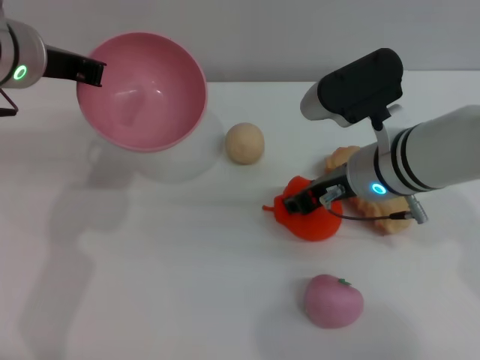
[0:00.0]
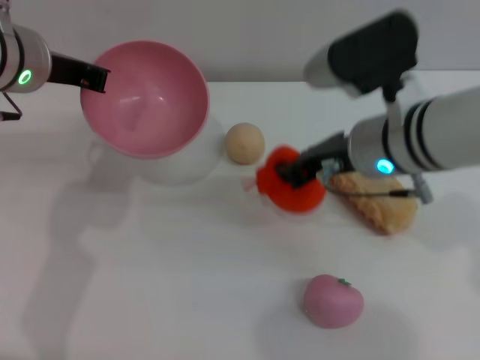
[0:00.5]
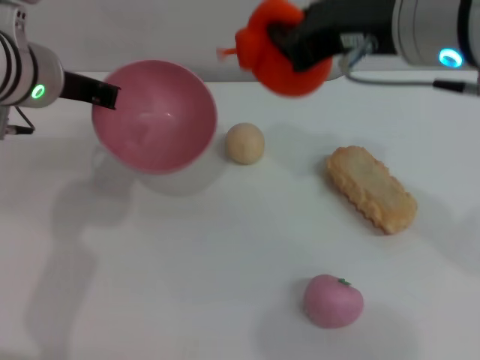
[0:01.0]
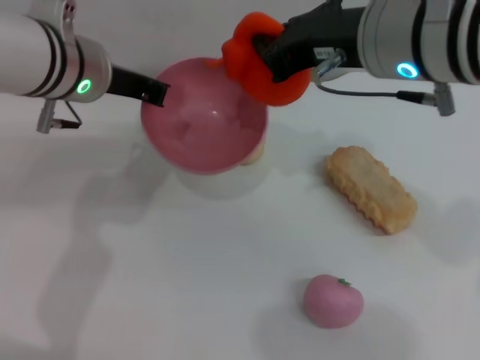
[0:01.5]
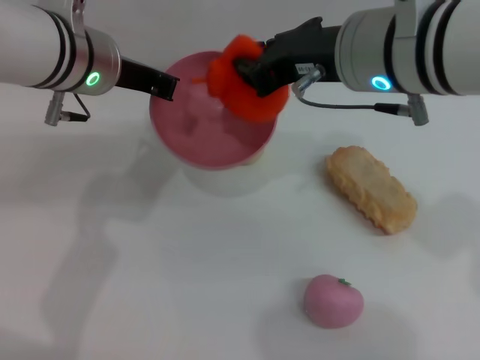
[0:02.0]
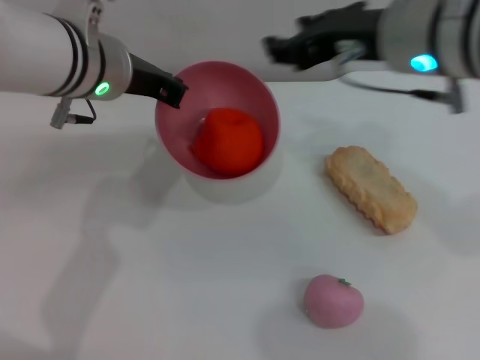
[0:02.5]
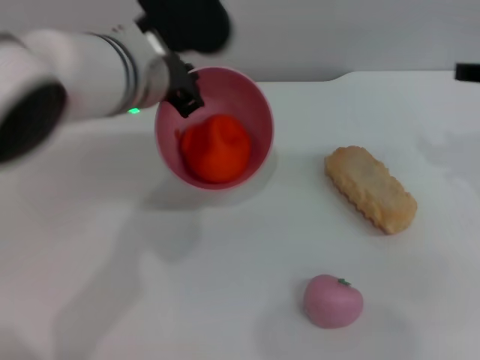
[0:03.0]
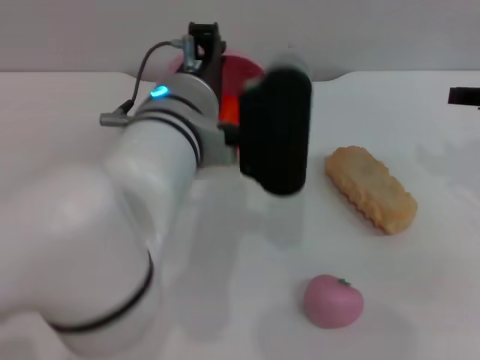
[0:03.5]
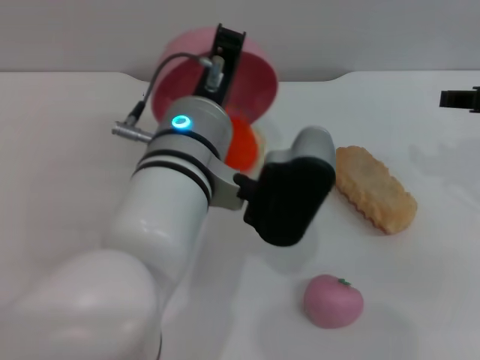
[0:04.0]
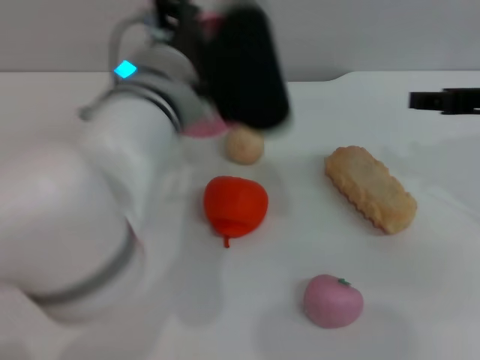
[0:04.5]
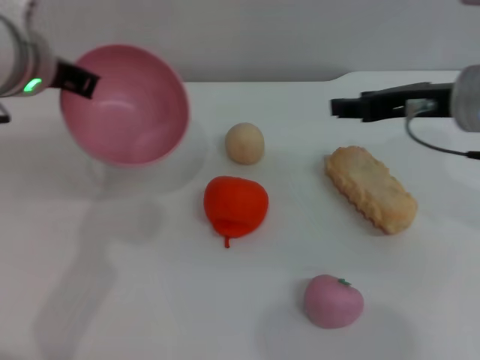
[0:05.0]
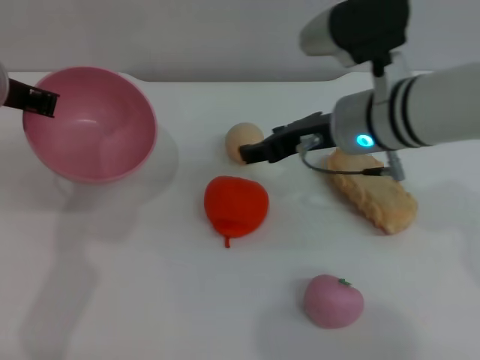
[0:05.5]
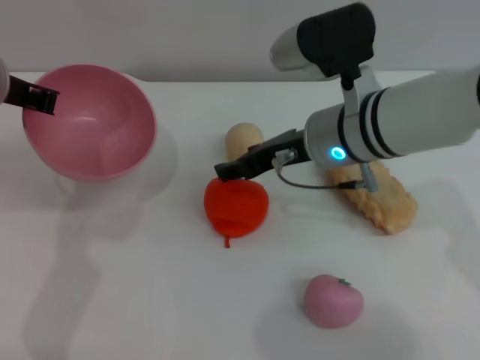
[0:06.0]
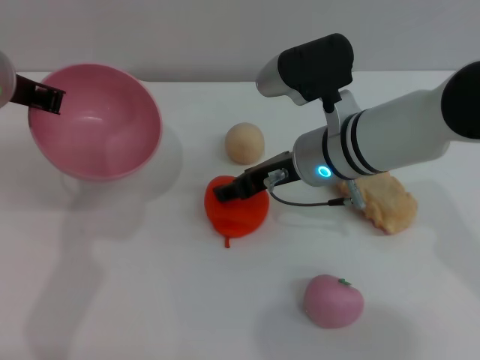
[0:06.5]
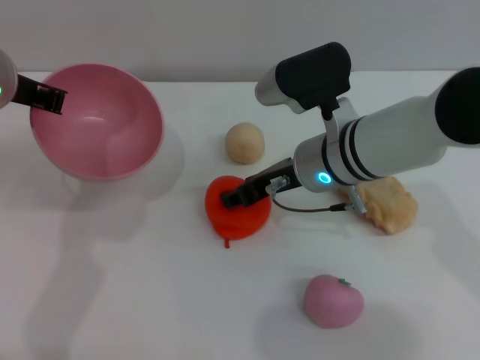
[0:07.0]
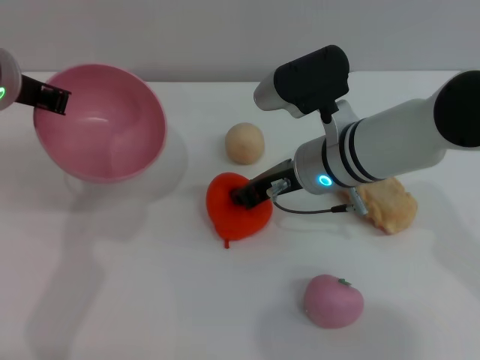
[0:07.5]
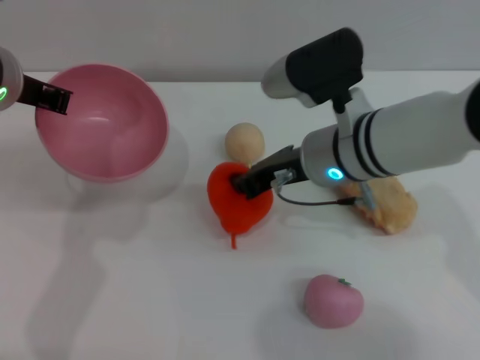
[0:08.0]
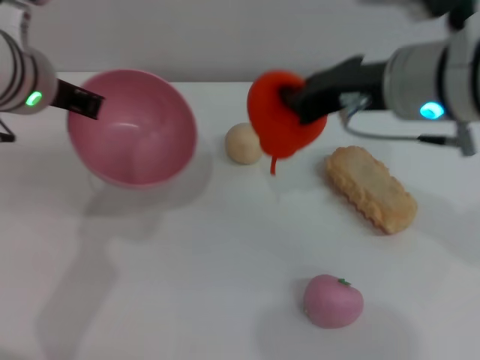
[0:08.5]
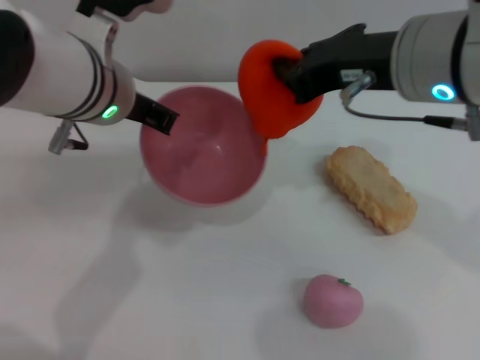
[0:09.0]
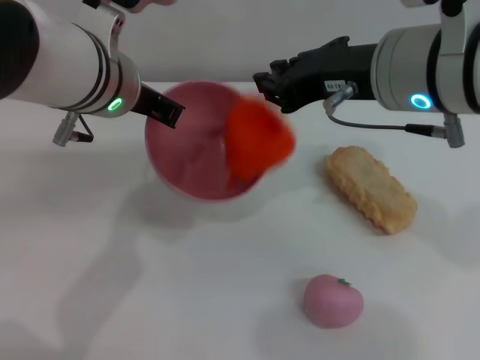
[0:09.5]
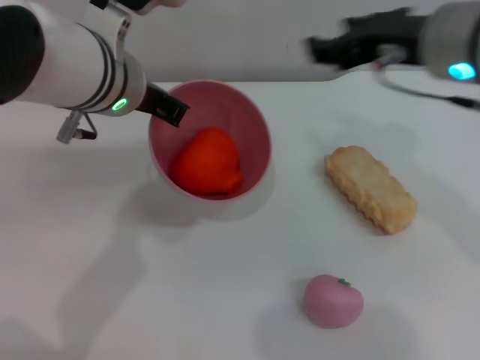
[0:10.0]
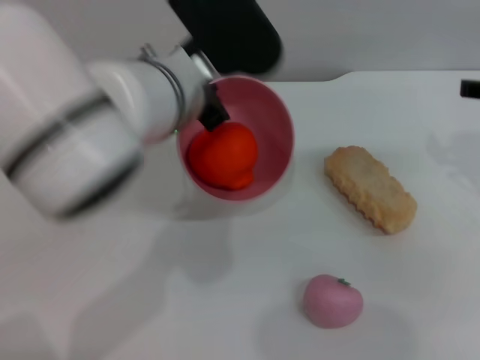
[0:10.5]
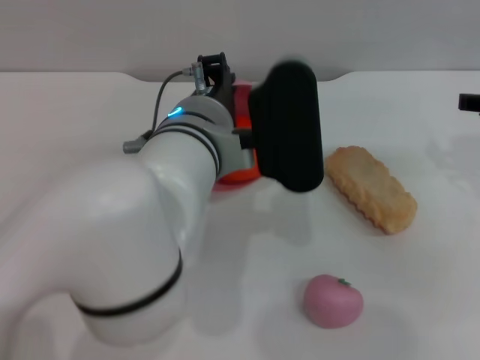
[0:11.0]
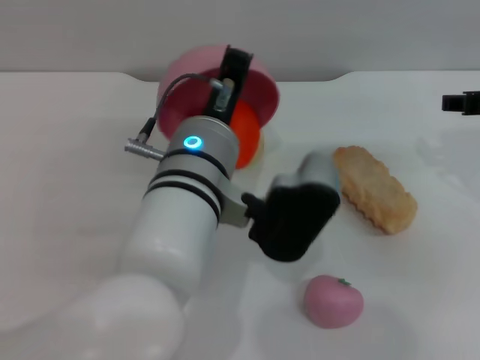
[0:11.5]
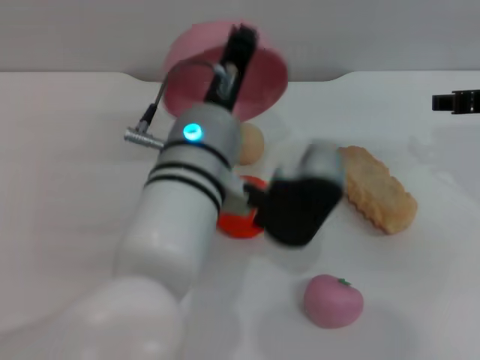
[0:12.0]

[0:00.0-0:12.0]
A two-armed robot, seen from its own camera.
Task of the whole recording: put the orange into the pink bowl and pour it out repeatedly.
Step, 0:01.0 to 0:02.0: Place the orange into the bowl.
Step, 0:02.5 to 0:04.0: Pour the orange out of the bowl.
Step, 0:04.5 to 0:08.5: Pick up the orange with the right gripper.
Step, 0:09.0 to 0:09.5: Place the orange into the bowl.
Step, 0:10.0 to 0:12.0: Pour the orange out of the bowl.
0:00.0 to 0:02.0: The left gripper goes about 5 cm to the right, while the right gripper heads upward, covering about 15 cm, and closes.
0:02.0 to 0:04.0: The left gripper is displaced to the right and backward by about 15 cm, while the right gripper is displaced to the right by some 20 cm, and opens up.
0:04.0 to 0:06.0: The grippers both shift to the left by approximately 20 cm.
0:06.0 to 0:08.0: The right gripper closes.
0:08.0 to 0:10.0: The right gripper goes some 15 cm upward and to the right, and opens; the left gripper is displaced to the right by about 10 cm.
0:10.0 to 0:12.0: The right gripper travels to the right and downward by some 10 cm, while the left gripper is displaced to the right, backward and downward by roughly 10 cm.

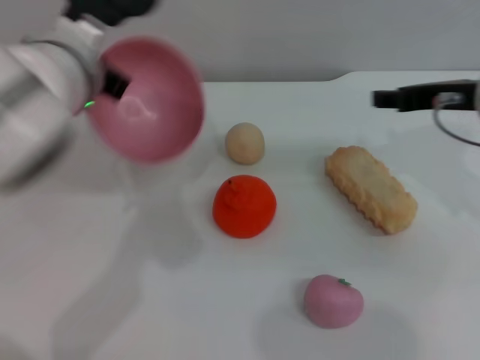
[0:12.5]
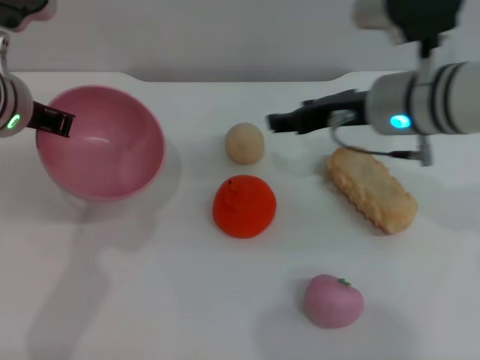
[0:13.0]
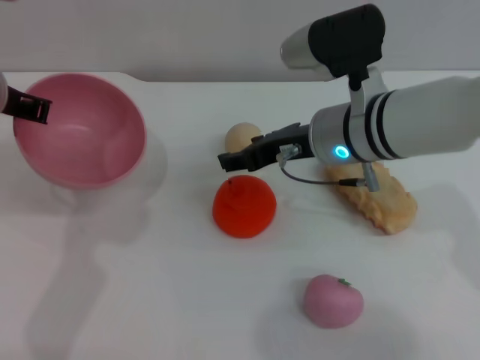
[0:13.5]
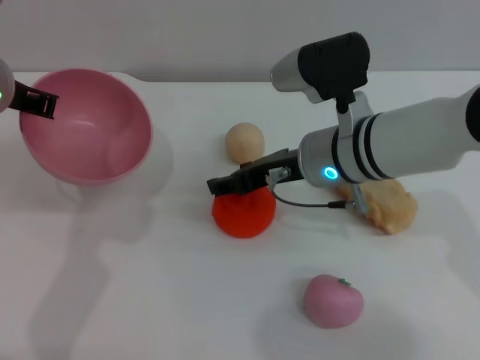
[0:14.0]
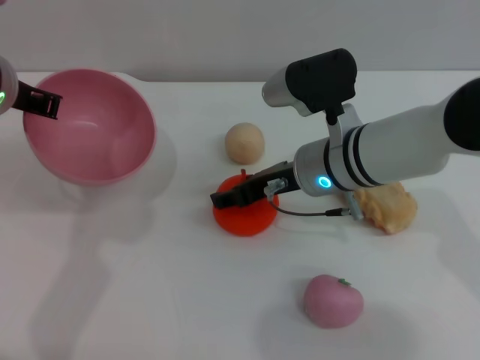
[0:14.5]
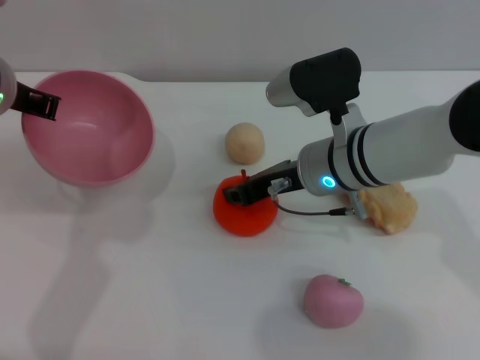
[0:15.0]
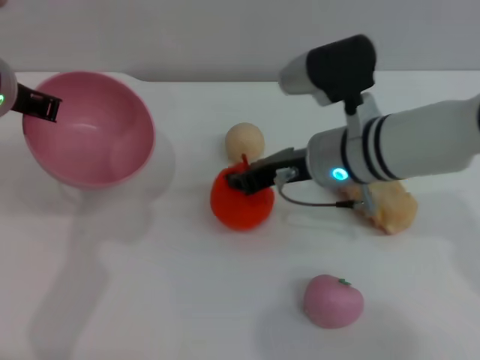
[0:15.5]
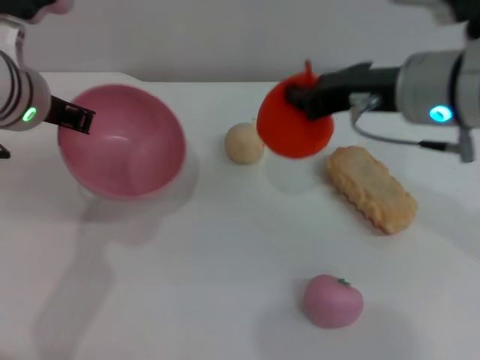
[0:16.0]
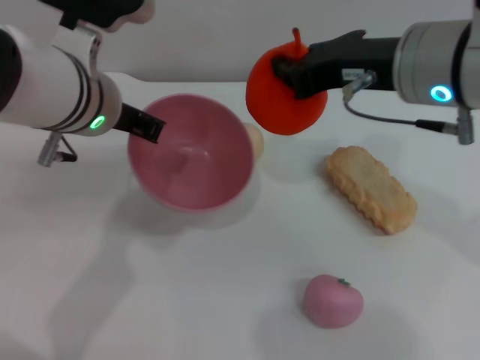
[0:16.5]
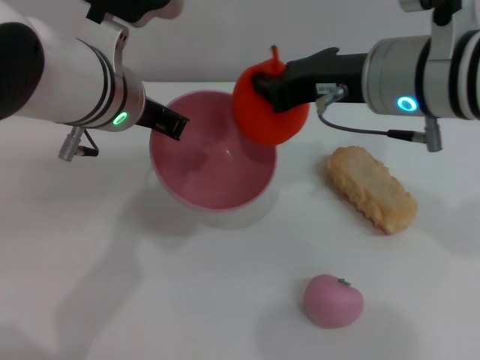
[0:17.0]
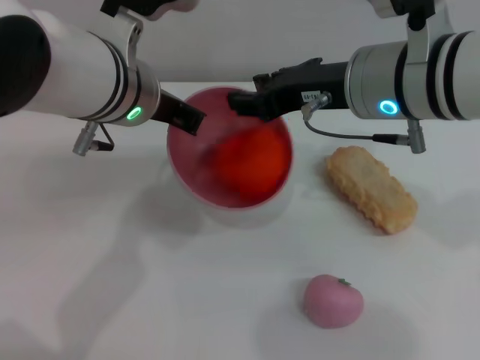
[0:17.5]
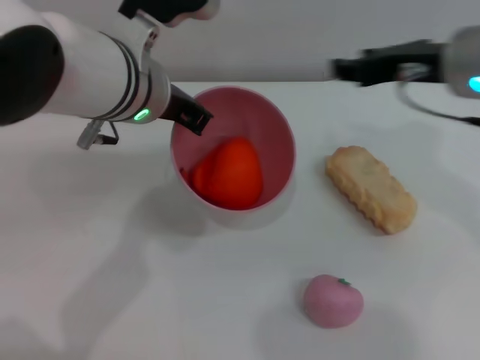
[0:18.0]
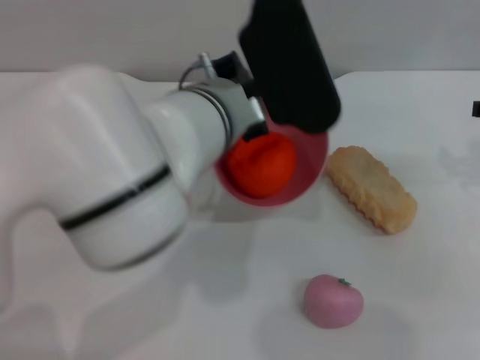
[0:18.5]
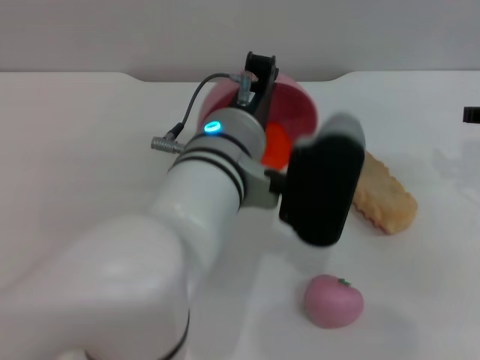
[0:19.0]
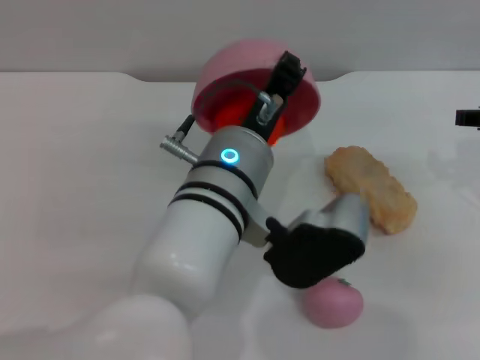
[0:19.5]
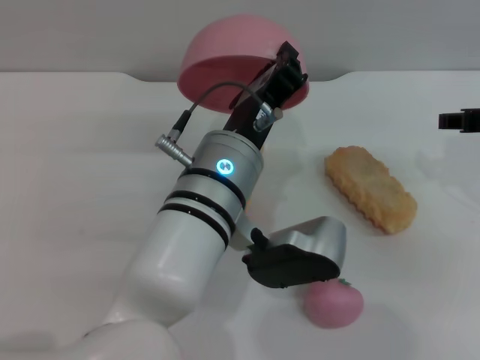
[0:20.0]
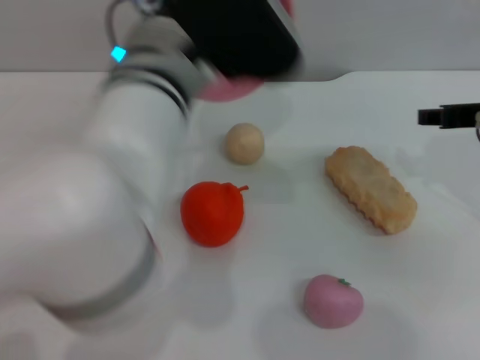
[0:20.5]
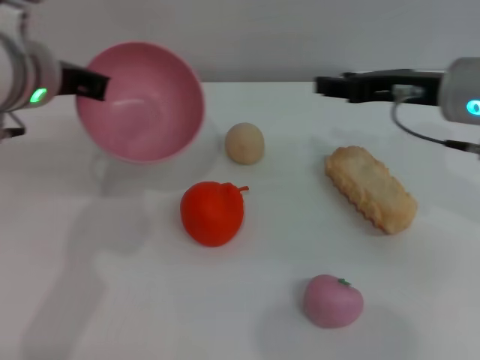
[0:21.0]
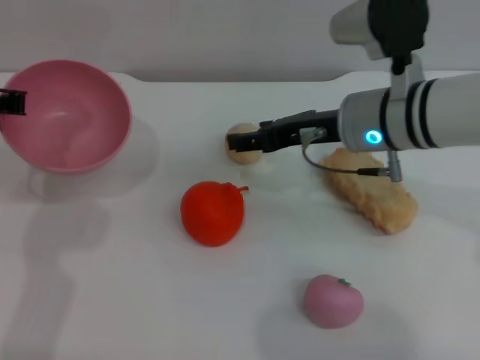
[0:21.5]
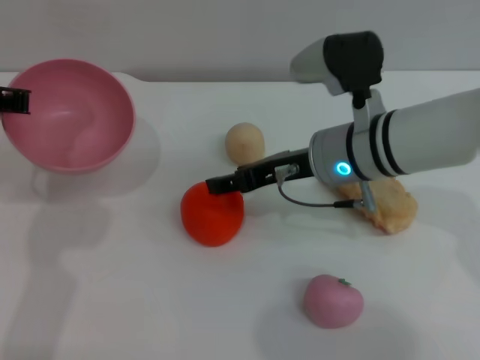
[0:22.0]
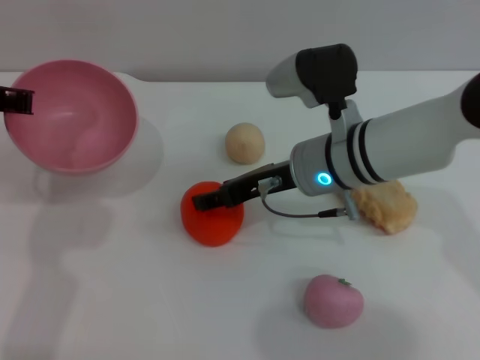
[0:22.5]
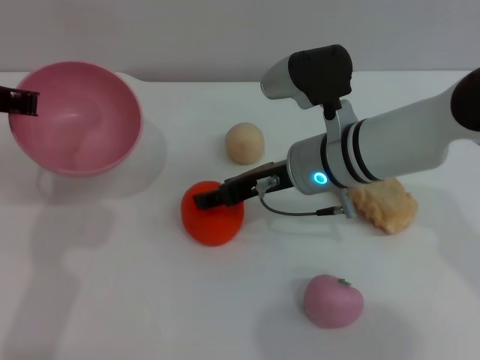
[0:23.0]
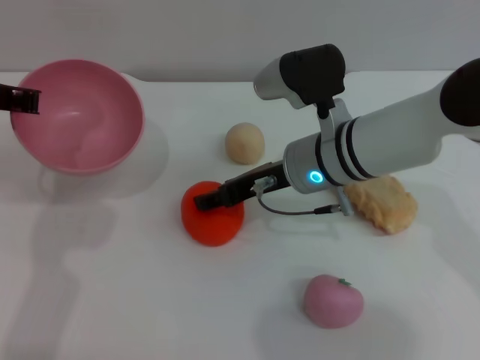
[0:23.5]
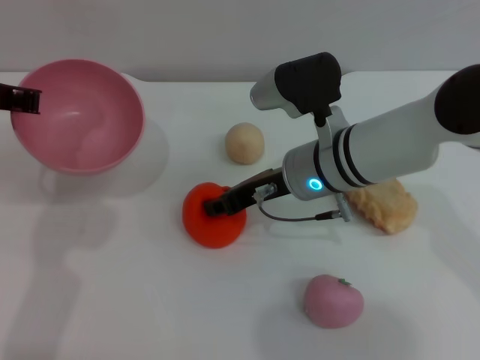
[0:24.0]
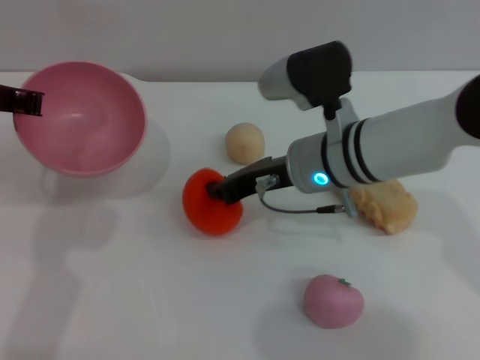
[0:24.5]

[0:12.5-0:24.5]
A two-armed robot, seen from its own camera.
Task of the whole recording: put the orange into the pink bowl and pour it out repeatedly.
Step, 0:12.5 to 0:15.5: Pick up the orange with the right gripper.
Step, 0:16.0 to 0:17.5: Place the orange into the bowl.
Step, 0:18.0 to 0:20.0: Pour the orange out of the bowl.
0:12.5 to 0:14.5: The left gripper moves to the left, about 5 cm. Meanwhile the right gripper moves to the left and downward, some 15 cm.
0:14.5 to 0:16.5: The right gripper goes about 15 cm upward, and closes its fingers. Meanwhile the left gripper goes about 5 cm to the right.
0:16.5 to 0:18.5: The left gripper travels to the right by roughly 10 cm. Meanwhile the right gripper heads to the right, covering about 15 cm, and opens up.
0:18.5 to 0:20.5: The left gripper goes downward and returns, some 5 cm each way.
0:20.5 to 0:22.5: The left gripper moves to the left, about 20 cm; the right gripper heads to the left and downward, covering approximately 20 cm.
0:22.5 to 0:24.5: The right gripper closes up.

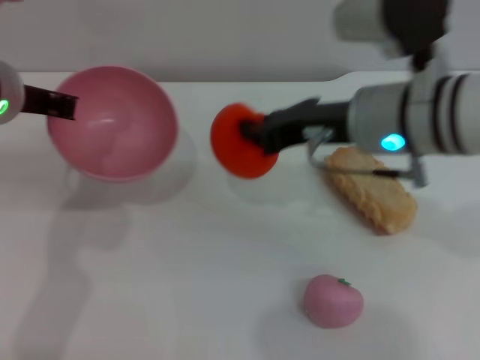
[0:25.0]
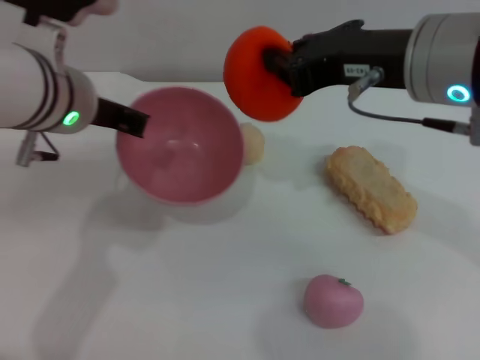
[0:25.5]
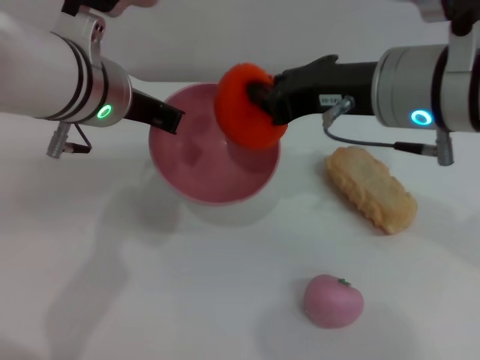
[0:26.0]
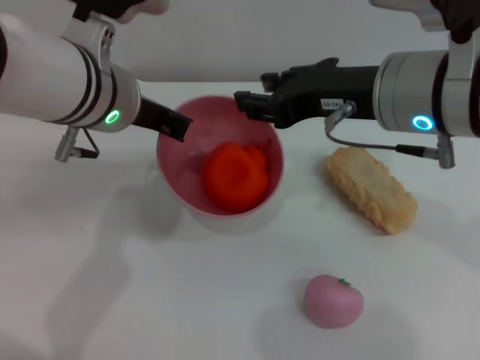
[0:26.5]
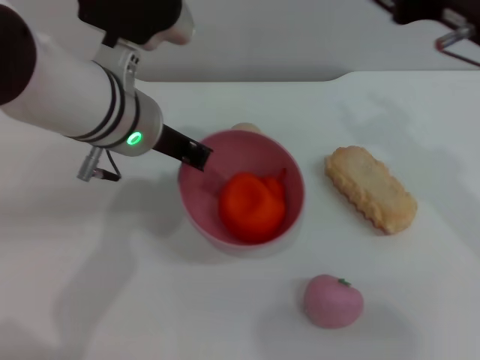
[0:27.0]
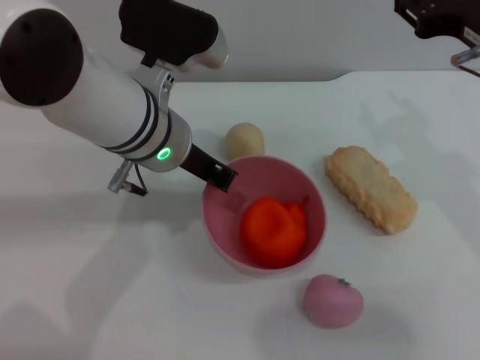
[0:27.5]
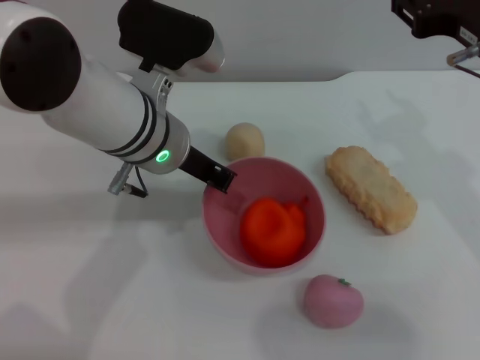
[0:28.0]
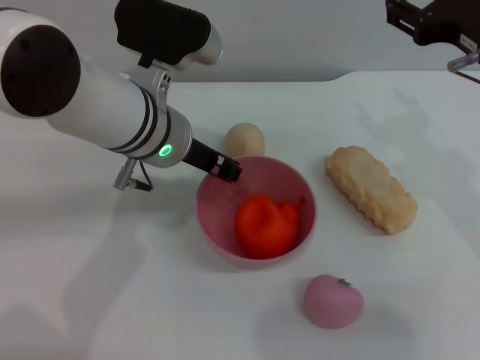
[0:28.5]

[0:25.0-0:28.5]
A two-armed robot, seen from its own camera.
Task of the whole recording: put the orange into the pink bowl and pour it out repeatedly.
Step, 0:25.5 to 0:26.0: Place the orange into the bowl.
0:25.0 to 0:27.0: The grippers both shift to the right by about 10 cm. The right gripper opens its fingers.
0:27.0 to 0:28.5: The grippers move only a little.